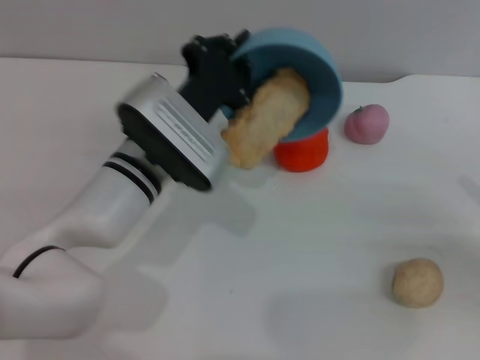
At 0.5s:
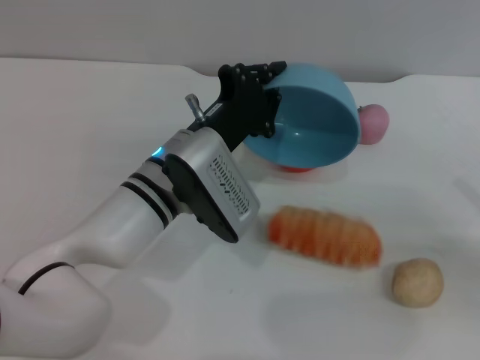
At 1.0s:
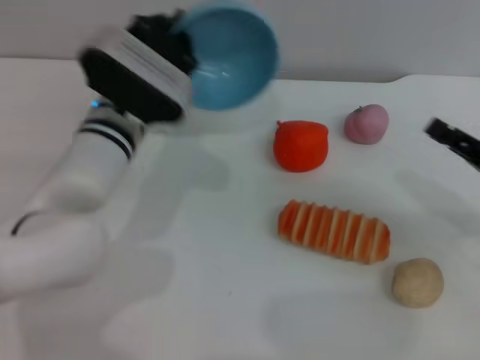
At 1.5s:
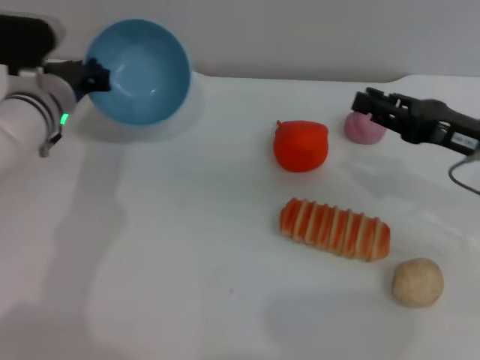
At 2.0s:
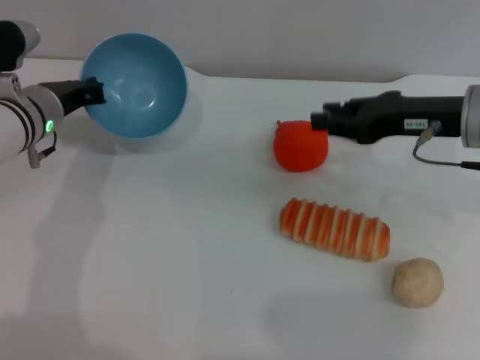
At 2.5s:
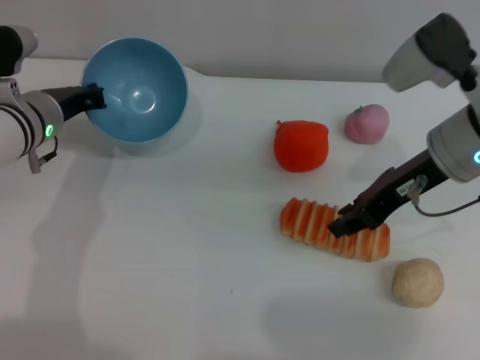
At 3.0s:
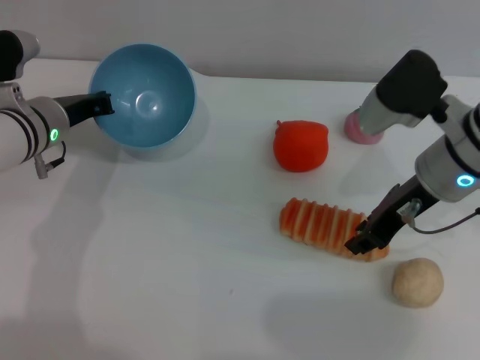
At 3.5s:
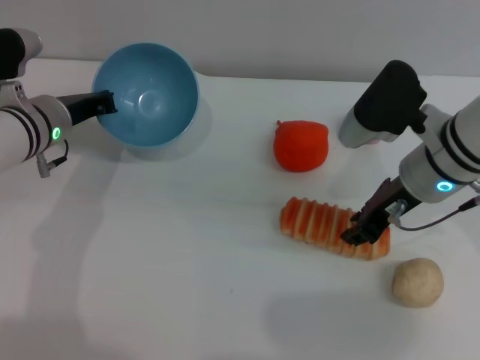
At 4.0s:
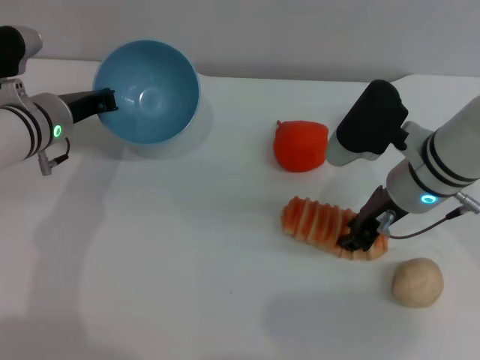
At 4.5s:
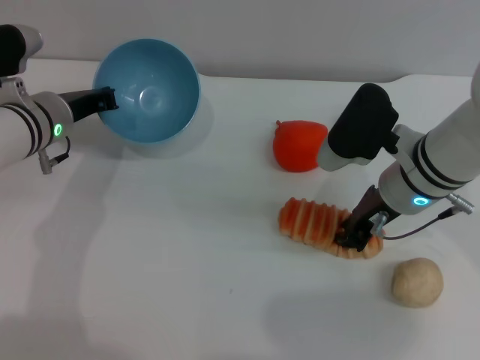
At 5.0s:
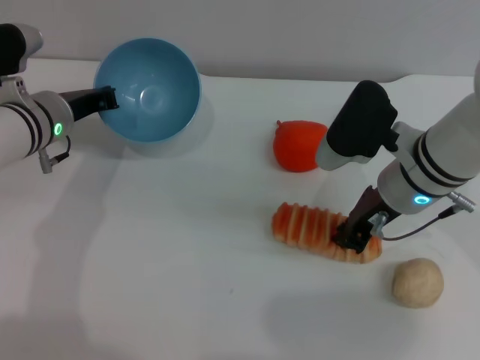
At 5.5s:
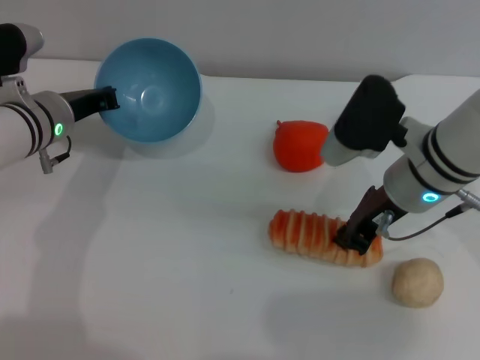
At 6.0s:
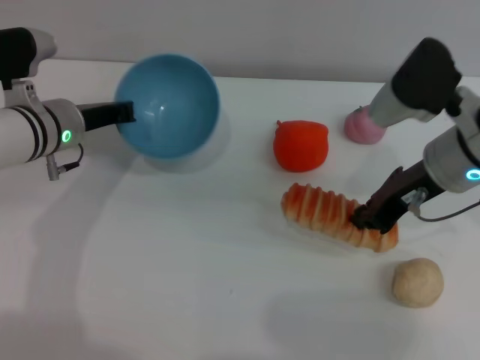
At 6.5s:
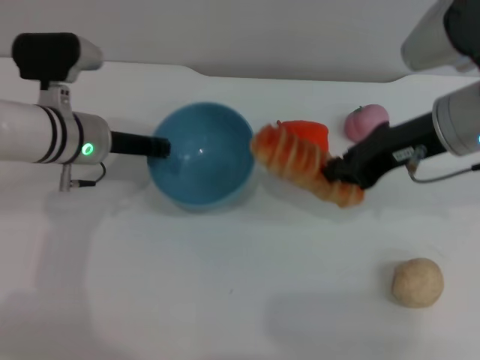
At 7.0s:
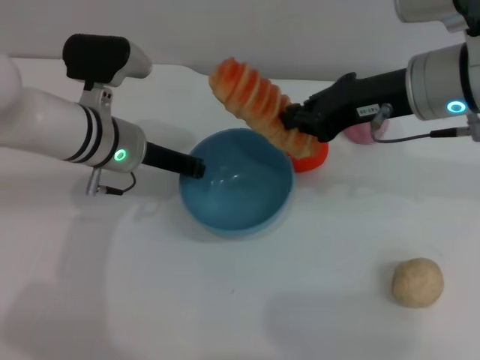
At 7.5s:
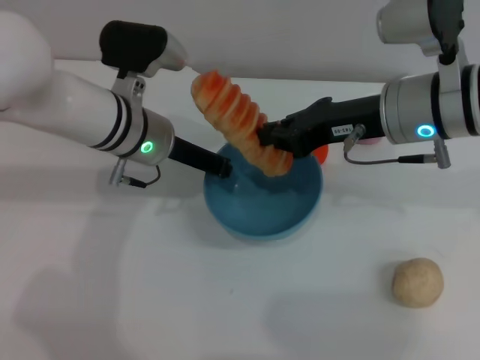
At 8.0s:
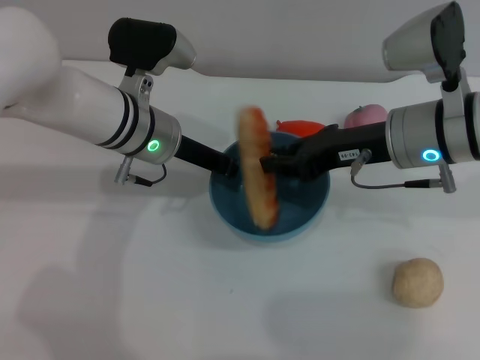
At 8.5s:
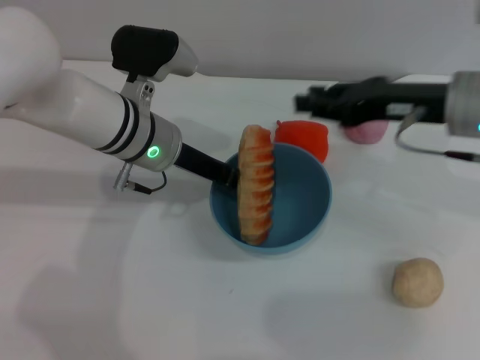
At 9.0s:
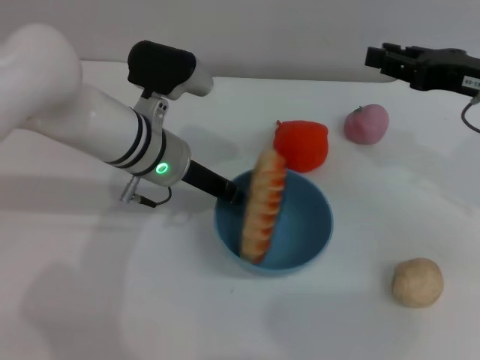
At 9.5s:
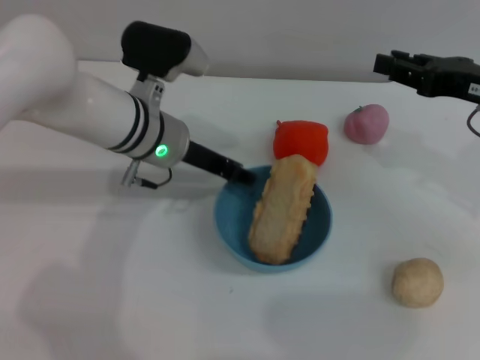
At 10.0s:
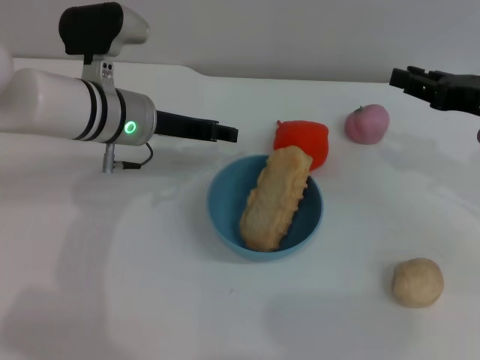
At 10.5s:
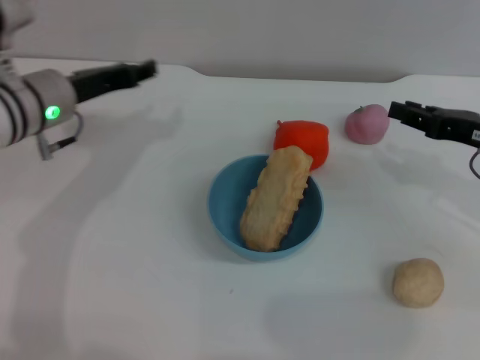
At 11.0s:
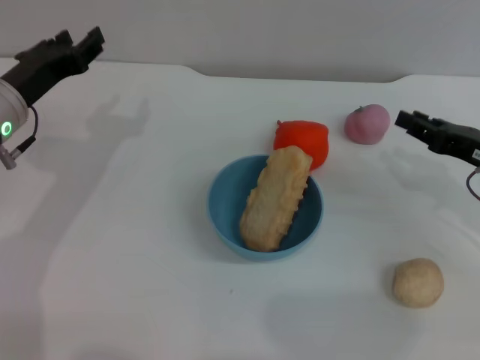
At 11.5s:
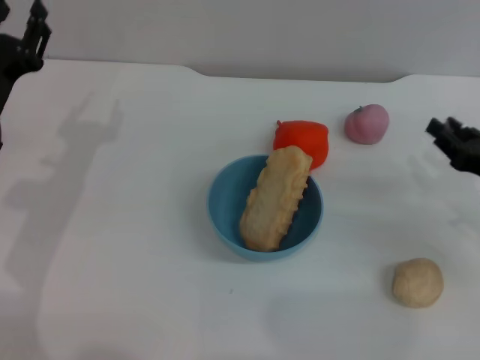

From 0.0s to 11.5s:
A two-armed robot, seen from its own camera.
Task of the whole recording: put the bread into the blue bowl and pour it out repeatedly.
Step, from 1.0s to 6.0s: Pick up the bread with the right gripper.
Step, from 6.5s to 8.0s: Place the bread into the bowl.
Step, from 8.5s to 10.0s: Place the bowl on the table.
From 0.0s to 2.0s: The left gripper is displaced to the left and forward by about 15 cm. The right gripper moves to the left, forward and upward, approximately 20 cm.
From 2.0s to 4.0s: The right gripper moves to the left and downward, some 10 cm.
From 4.0s to 6.0s: The right gripper moves upward, some 5 cm, and closes up.
From 6.0s to 7.5s: The left gripper heads to the right, covering some 10 cm.
From 7.5s to 9.5s: The right gripper goes roughly 10 cm to the right, and opens up.
From 9.5s to 11.5s: The right gripper moves downward and backward, approximately 15 cm; the left gripper is displaced to the left and backward by some 15 cm.
